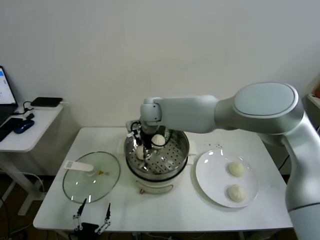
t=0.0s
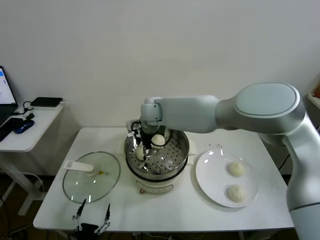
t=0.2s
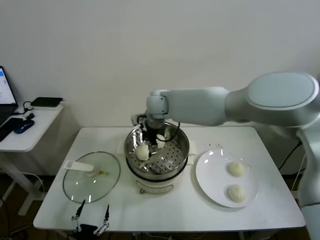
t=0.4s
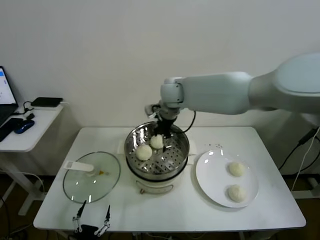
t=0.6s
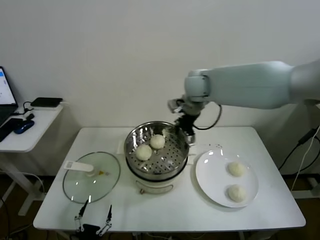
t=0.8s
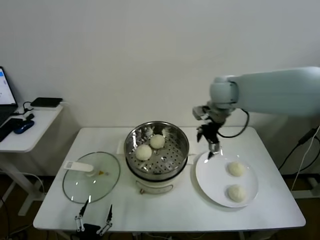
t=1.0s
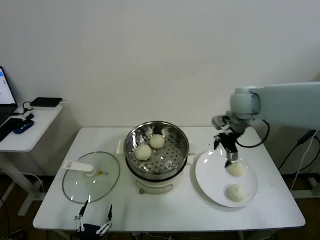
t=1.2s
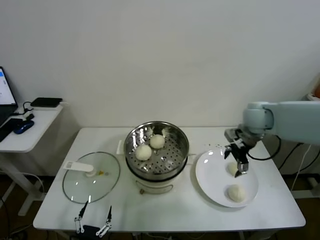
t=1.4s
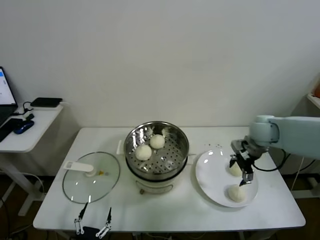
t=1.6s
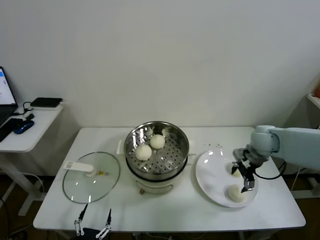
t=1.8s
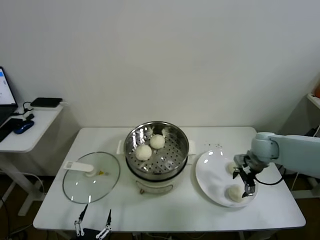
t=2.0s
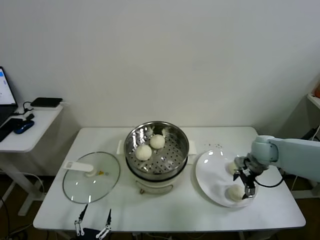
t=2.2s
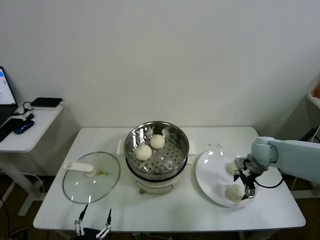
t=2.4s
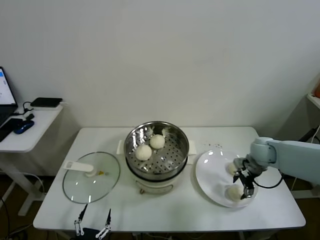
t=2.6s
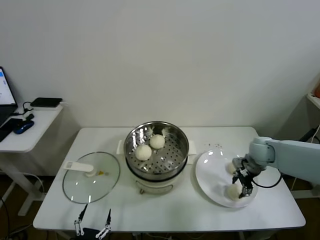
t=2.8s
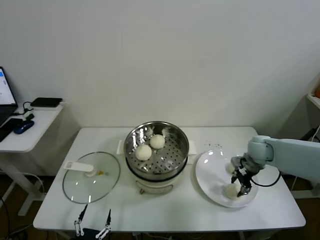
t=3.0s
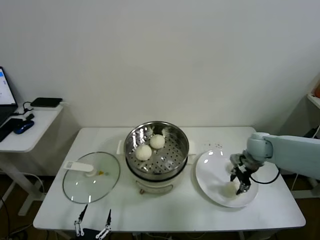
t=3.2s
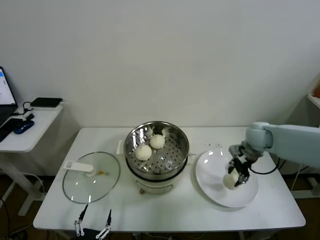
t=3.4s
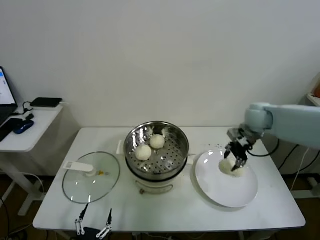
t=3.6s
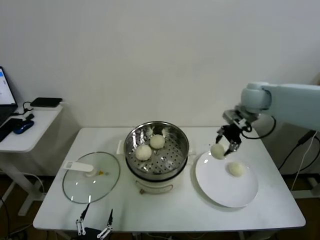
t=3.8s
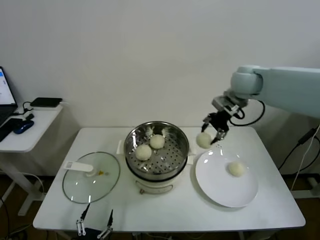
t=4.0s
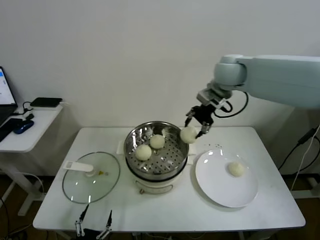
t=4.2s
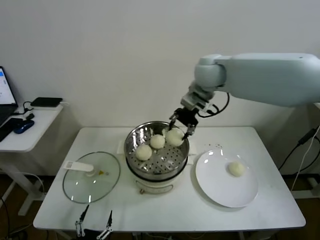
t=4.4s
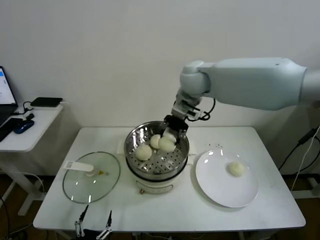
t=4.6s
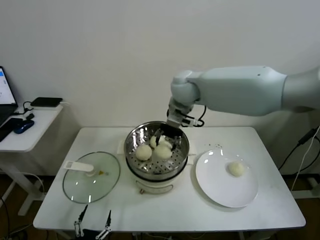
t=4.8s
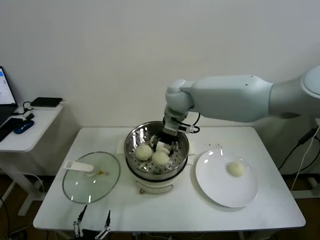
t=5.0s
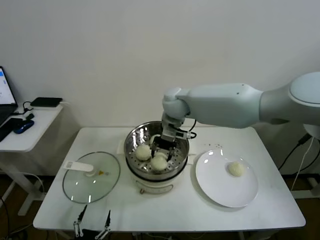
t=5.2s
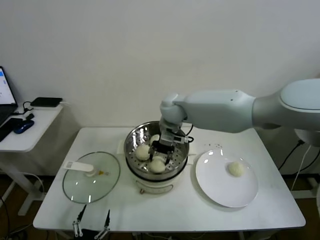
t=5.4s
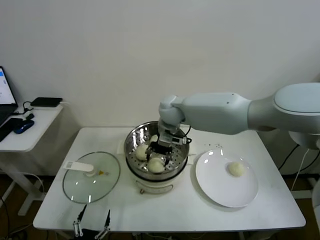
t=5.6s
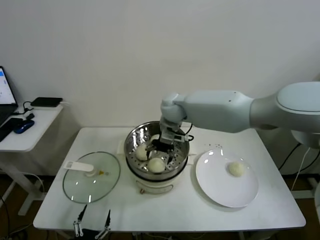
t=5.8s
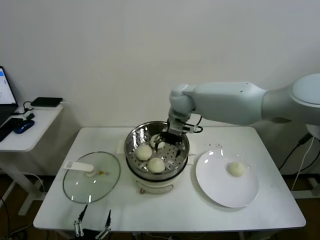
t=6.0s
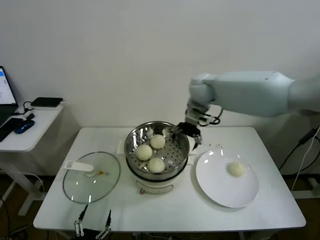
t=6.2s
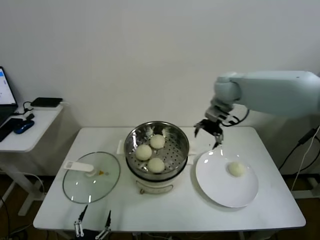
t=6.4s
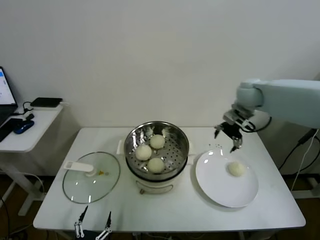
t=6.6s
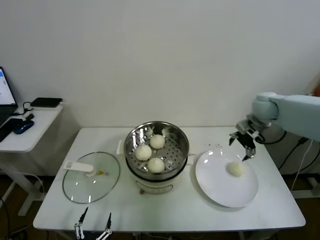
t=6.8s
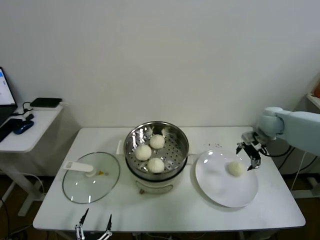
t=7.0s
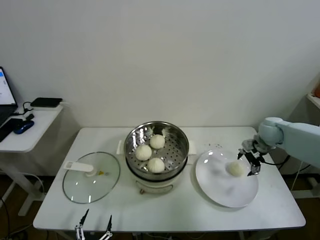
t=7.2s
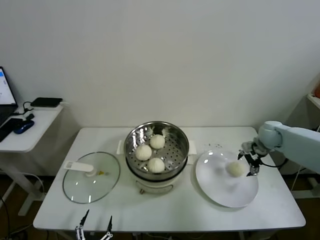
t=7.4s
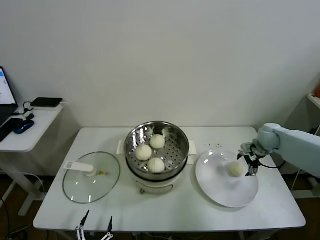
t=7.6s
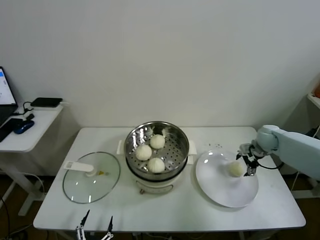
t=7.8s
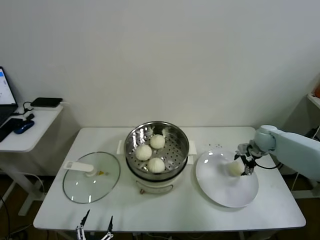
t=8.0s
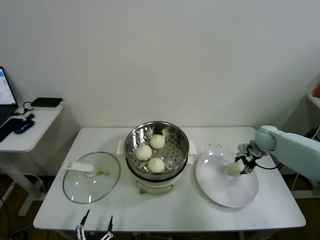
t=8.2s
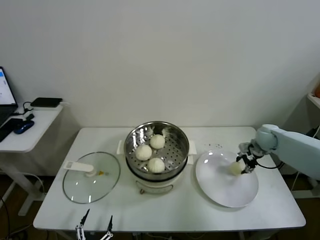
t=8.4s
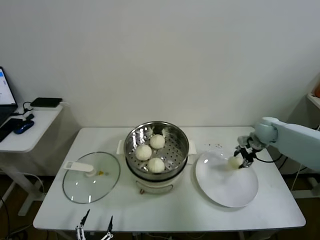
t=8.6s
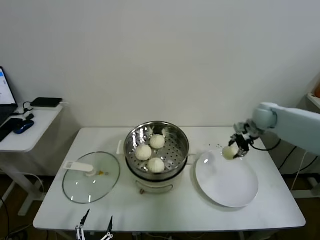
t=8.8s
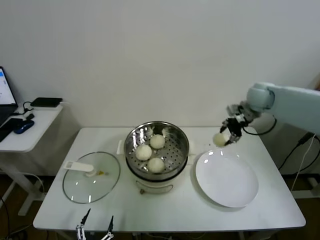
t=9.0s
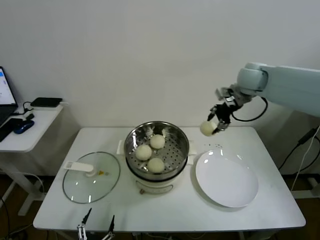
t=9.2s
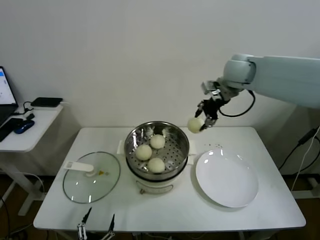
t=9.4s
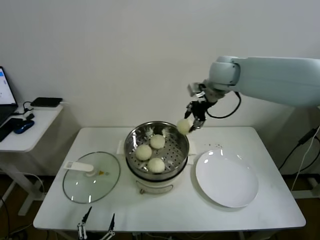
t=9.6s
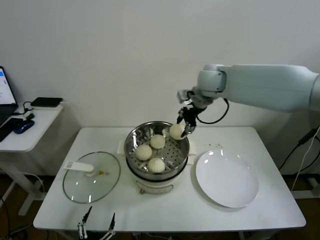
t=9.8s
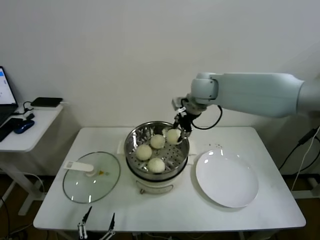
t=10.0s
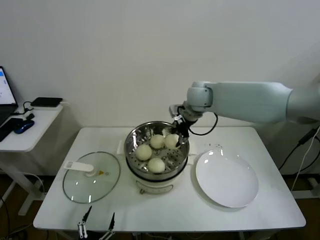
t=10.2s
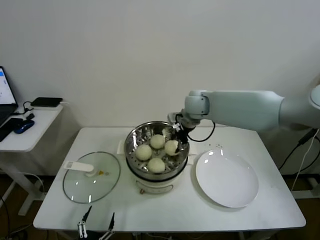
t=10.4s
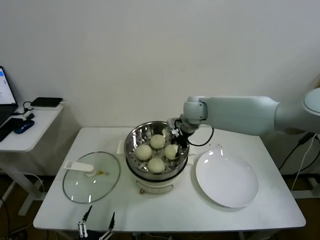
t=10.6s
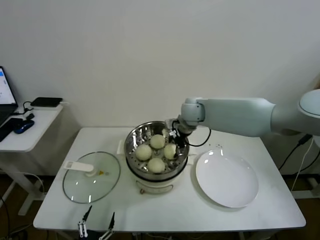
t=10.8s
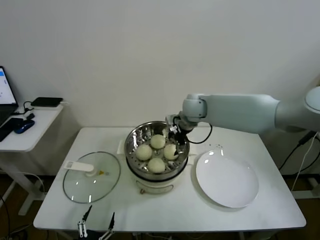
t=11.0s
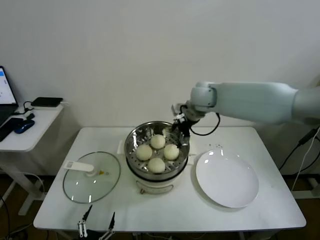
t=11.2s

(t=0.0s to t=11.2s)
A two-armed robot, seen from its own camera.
Task of the whole recording: take steamed baozi put them in steamer.
Step, t=0.4s - t=3.0s: Grasp the baozi in the plate with right gripper.
Step, t=3.4s - t=5.6s: Place the baozi on the steamer with right gripper.
Step, t=5.8s - t=8.2s: Grasp the baozi in the plate with right gripper.
Step, t=8.4s - t=10.8s: Place the baozi on the steamer with right gripper.
t=0.0s - t=1.6s: The right gripper goes roughly 35 cm to the right, and opens its fingers.
t=1.6s - t=3.2s: The right gripper goes some 10 cm downward, and closes.
t=3.2s - t=4.8s: The right gripper is displaced to the left and upward by some 35 cm.
t=4.8s - t=6.4s: The right gripper travels to the right by roughly 15 cm, and opens up.
t=6.4s - t=8.0s: The right gripper travels downward and to the right by roughly 30 cm.
t=8.0s - t=9.6s: The right gripper heads upward and to the left, covering about 35 cm, and closes up.
t=9.6s - t=11.2s: The right gripper shifts about 10 cm downward and to the left, and opens.

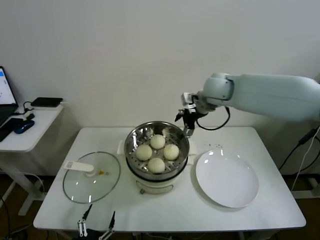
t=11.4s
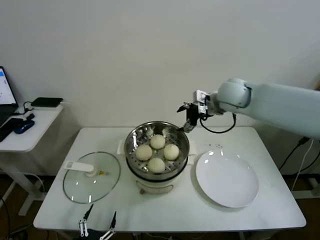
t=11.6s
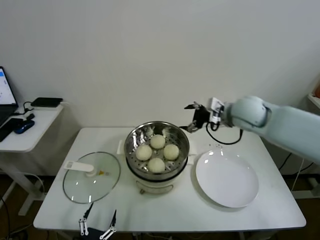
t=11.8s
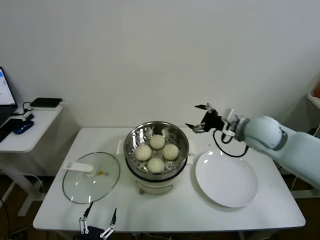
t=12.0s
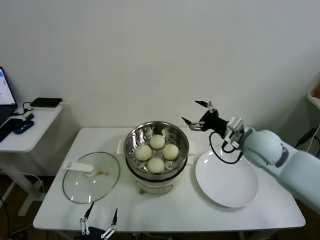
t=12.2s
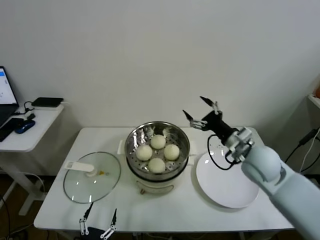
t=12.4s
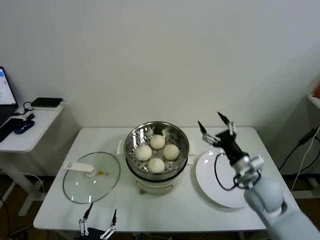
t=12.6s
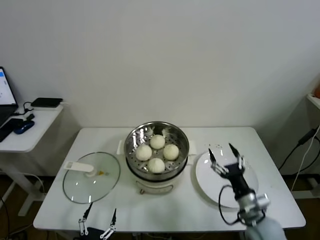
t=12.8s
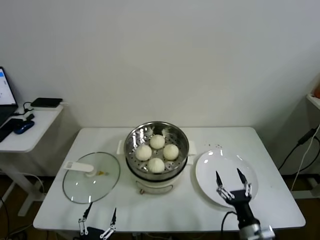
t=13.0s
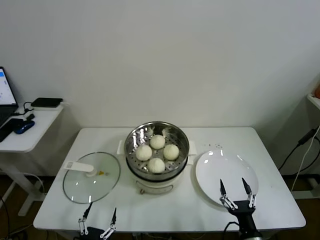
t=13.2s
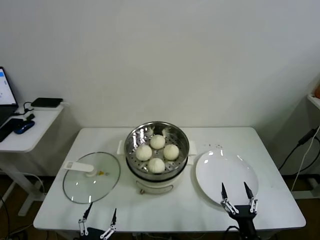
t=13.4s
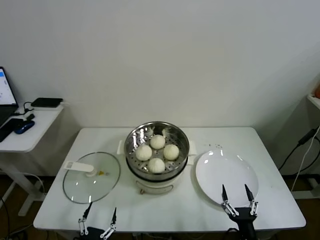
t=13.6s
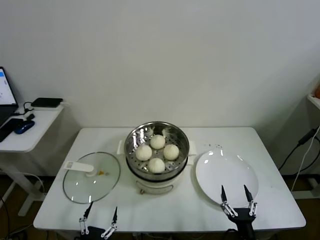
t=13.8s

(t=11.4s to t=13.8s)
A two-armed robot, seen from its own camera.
Task of the whole recording: take steamed baozi put them in steamer.
t=11.4s - t=12.6s: The right gripper is displaced backward, downward and to the right by roughly 30 cm.
t=12.6s - t=13.8s: The right gripper is displaced backward and downward by some 30 cm.

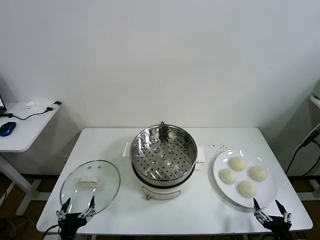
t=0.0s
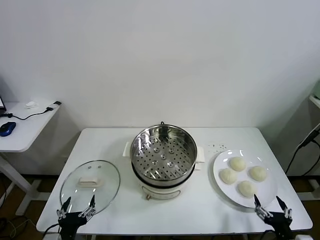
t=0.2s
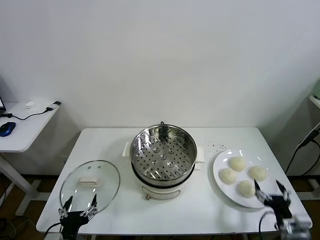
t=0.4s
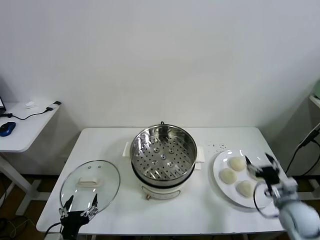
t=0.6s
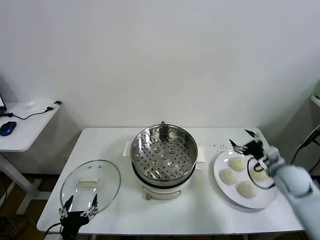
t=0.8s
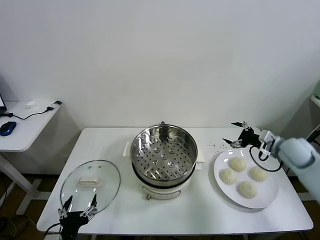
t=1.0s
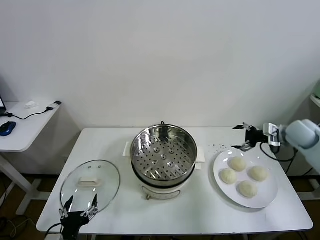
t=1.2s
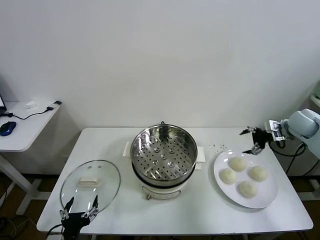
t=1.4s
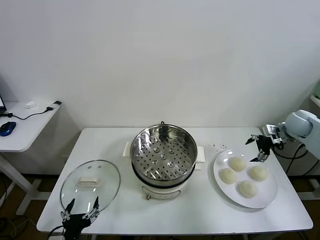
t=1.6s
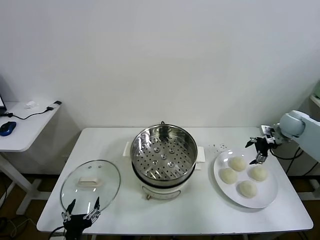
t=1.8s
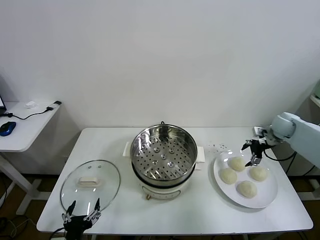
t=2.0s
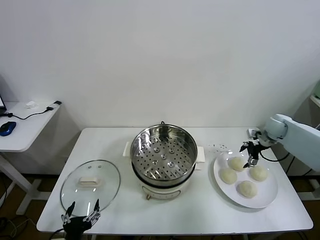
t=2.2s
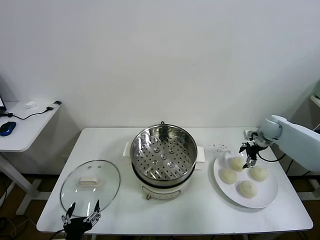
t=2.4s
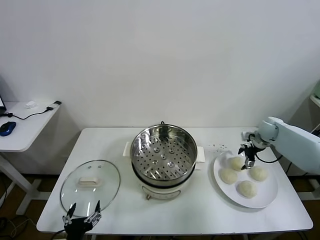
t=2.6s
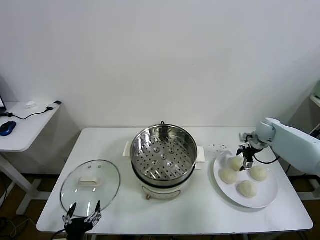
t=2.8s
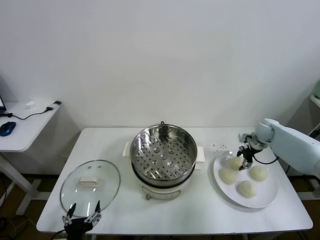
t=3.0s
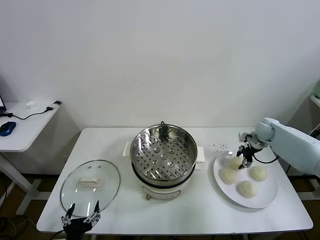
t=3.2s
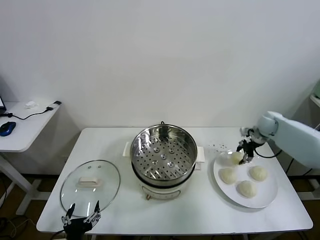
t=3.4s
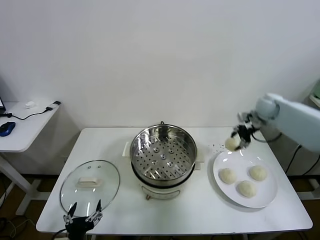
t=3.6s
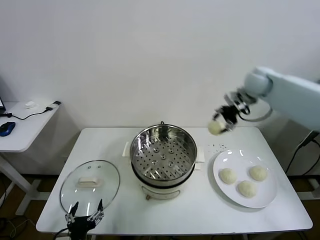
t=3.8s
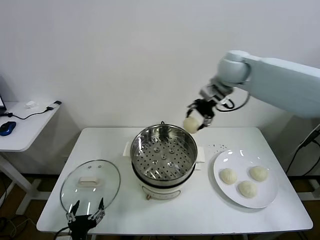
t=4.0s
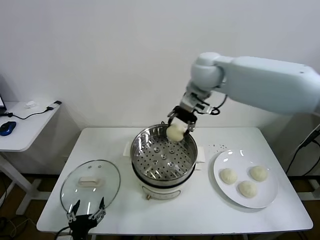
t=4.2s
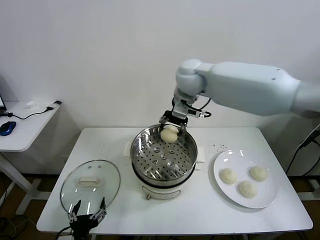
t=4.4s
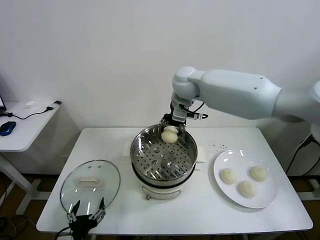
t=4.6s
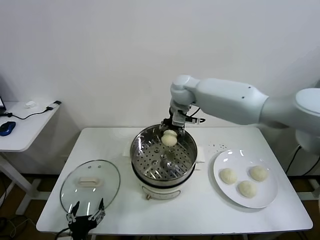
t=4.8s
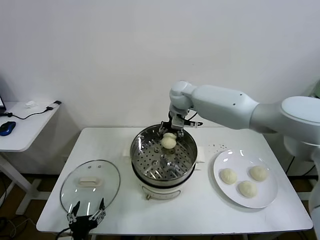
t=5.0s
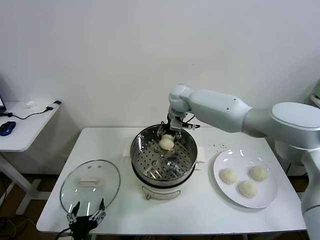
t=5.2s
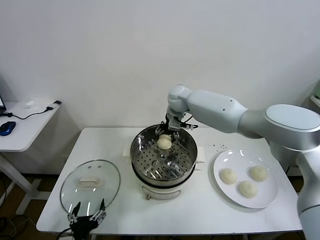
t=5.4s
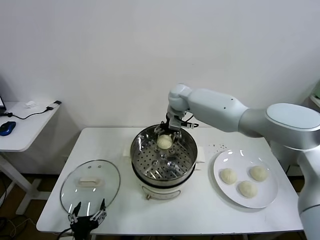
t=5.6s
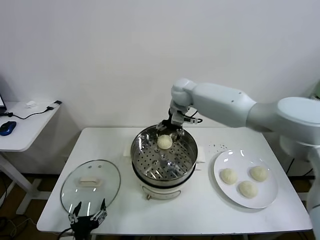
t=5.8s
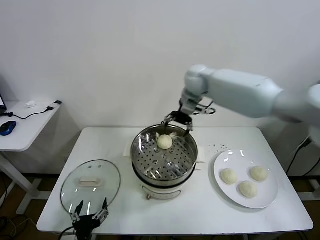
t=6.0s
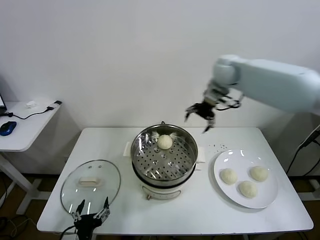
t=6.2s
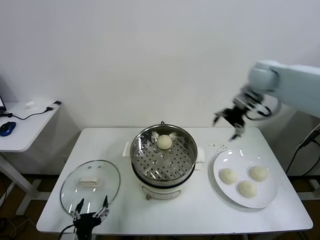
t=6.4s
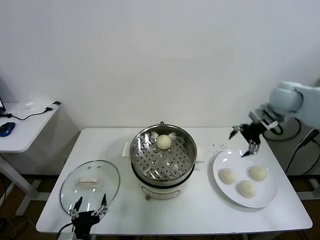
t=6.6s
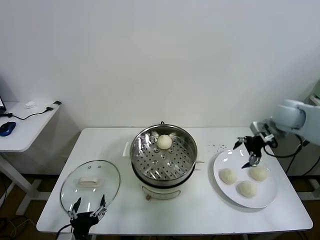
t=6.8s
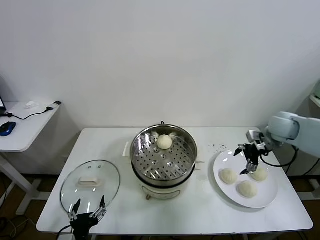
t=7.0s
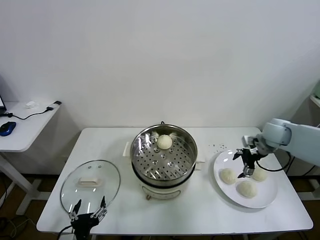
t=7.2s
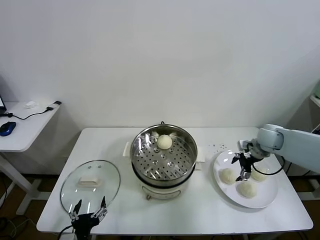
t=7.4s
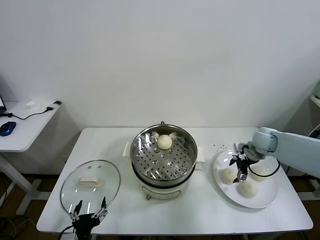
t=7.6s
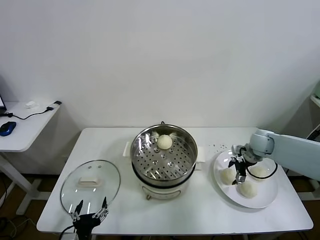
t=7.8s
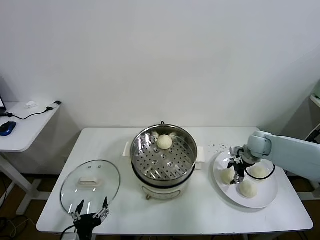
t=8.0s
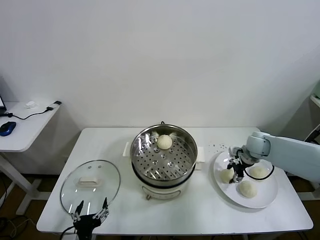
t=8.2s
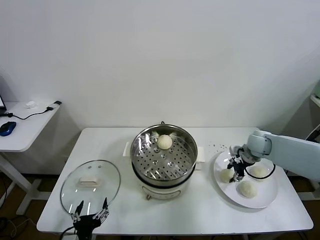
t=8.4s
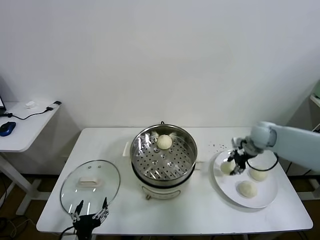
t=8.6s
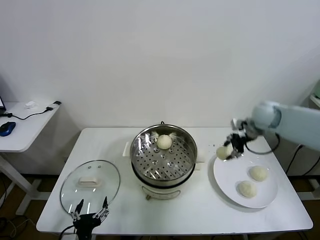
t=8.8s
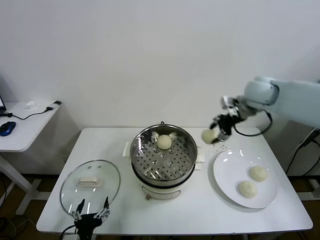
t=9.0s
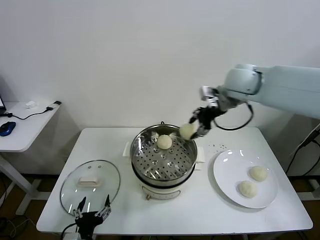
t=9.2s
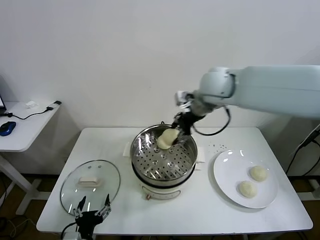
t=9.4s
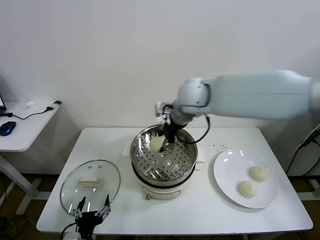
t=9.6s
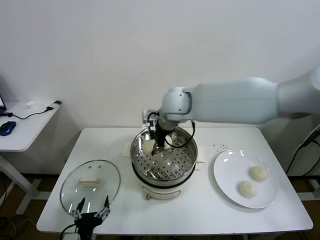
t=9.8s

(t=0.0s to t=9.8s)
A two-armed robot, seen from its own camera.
Task of the whole recording: take steamed baozi put them in steamer.
Step, t=0.0s - t=3.2s: Grasp the baozi in the plate with right gripper.
Step, t=3.4s - t=5.6s: Place the baozi on the steamer with right gripper.
Step, t=6.0s - t=8.2s: Grasp the baozi in the plate with right gripper.
t=1.4s - t=2.8s: The right gripper goes about 10 cm downward, to the left and forward.
t=2.8s - t=4.2s: The right gripper moves to the left and upward, some 40 cm.
t=4.2s - t=5.6s: The right gripper travels downward and forward by some 15 cm, and opens.
t=5.6s - t=7.0s: The right gripper goes about 35 cm to the right.
t=7.0s - t=8.4s: The right gripper goes about 5 cm downward, and closes its fingers.
t=8.4s - t=9.8s: The right gripper heads to the left and upward, covering about 40 cm.
